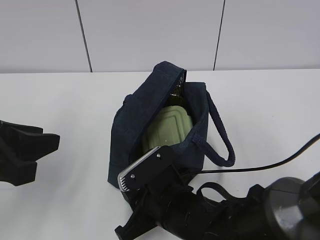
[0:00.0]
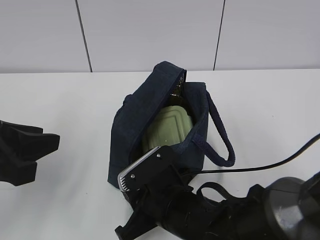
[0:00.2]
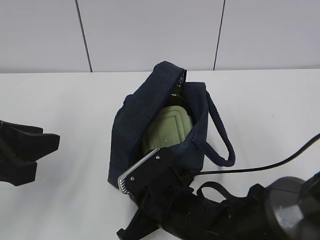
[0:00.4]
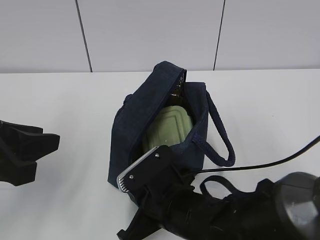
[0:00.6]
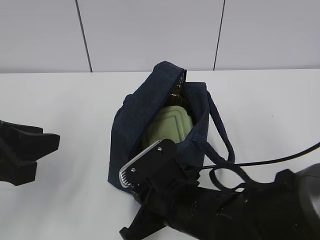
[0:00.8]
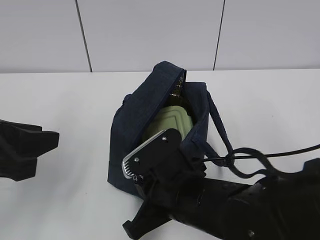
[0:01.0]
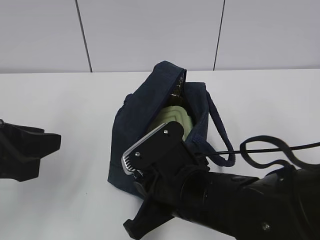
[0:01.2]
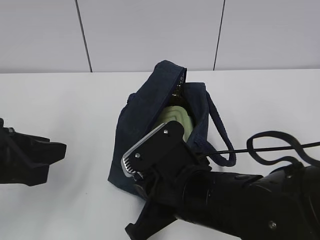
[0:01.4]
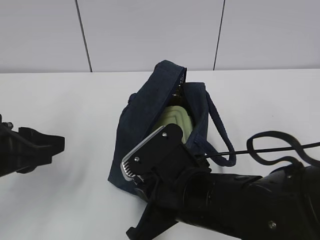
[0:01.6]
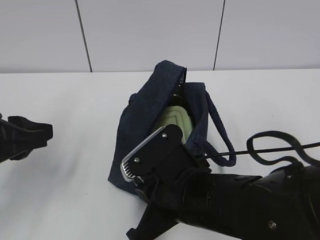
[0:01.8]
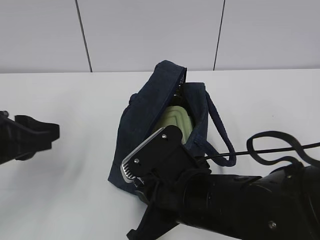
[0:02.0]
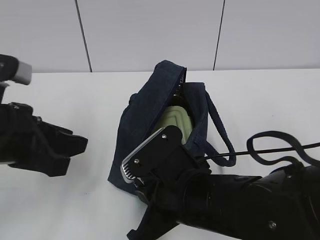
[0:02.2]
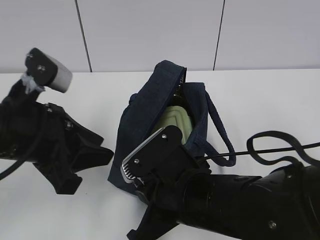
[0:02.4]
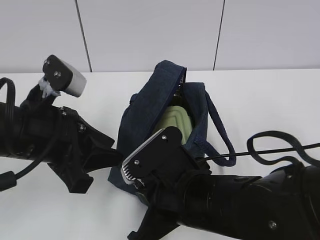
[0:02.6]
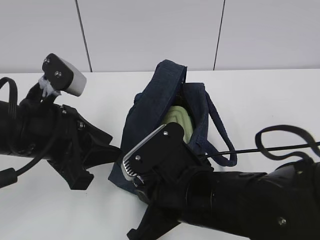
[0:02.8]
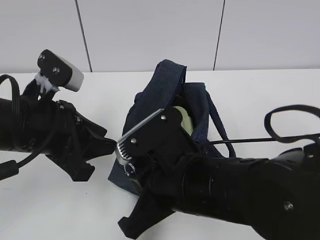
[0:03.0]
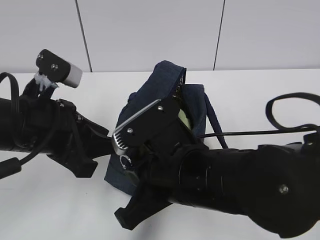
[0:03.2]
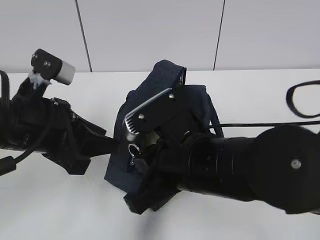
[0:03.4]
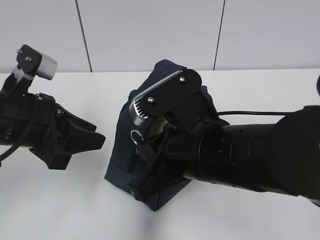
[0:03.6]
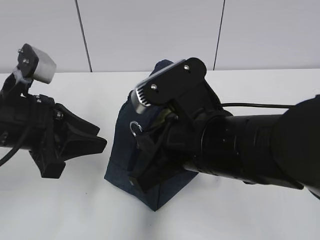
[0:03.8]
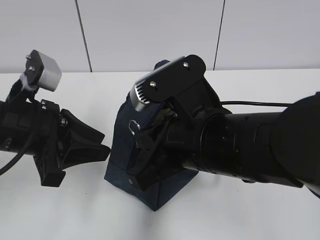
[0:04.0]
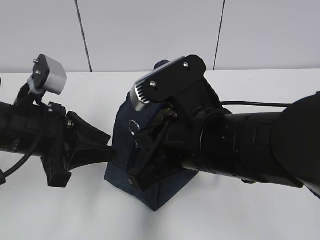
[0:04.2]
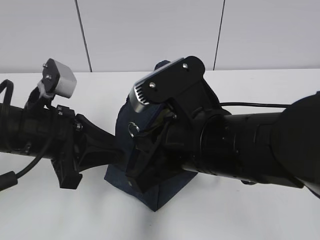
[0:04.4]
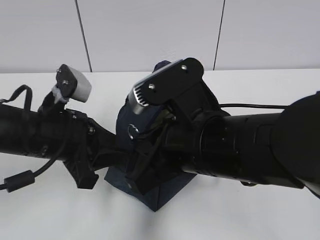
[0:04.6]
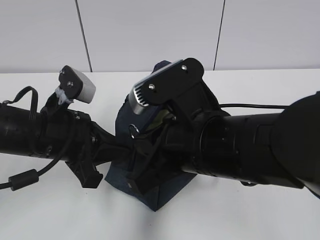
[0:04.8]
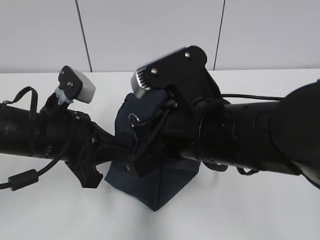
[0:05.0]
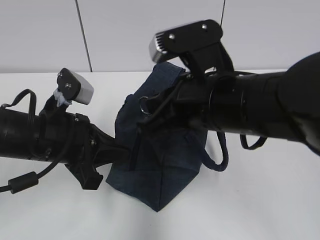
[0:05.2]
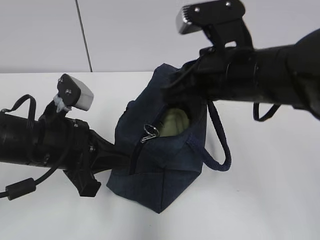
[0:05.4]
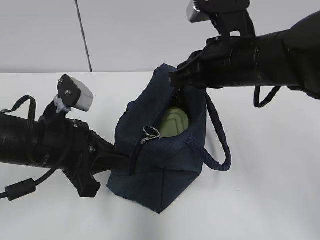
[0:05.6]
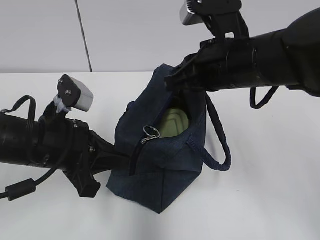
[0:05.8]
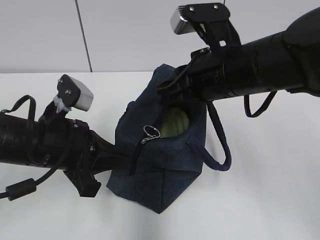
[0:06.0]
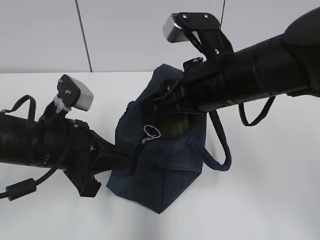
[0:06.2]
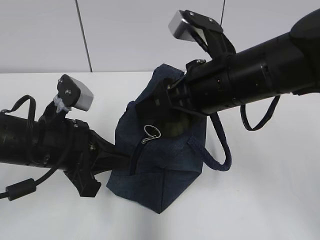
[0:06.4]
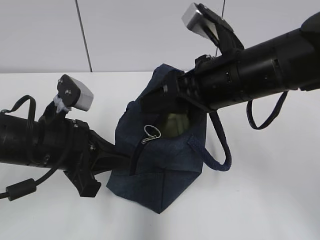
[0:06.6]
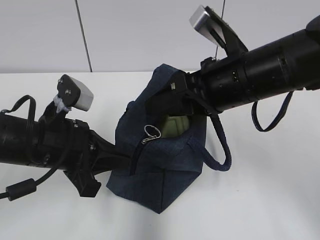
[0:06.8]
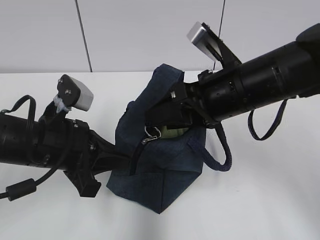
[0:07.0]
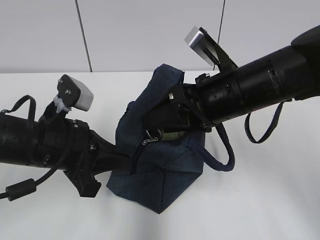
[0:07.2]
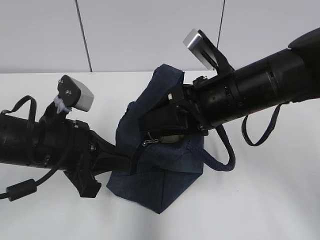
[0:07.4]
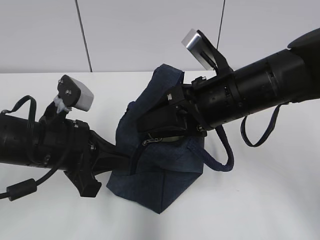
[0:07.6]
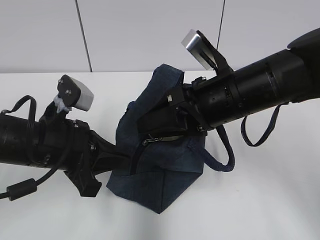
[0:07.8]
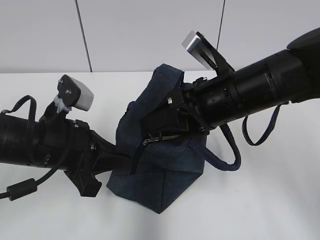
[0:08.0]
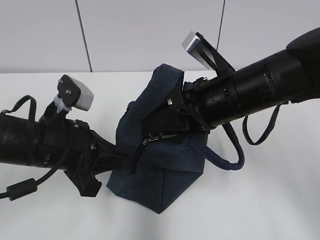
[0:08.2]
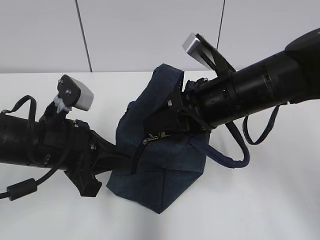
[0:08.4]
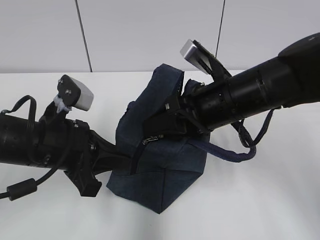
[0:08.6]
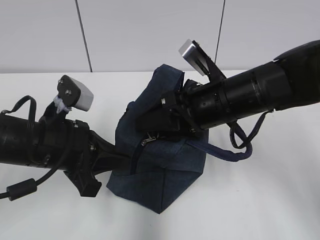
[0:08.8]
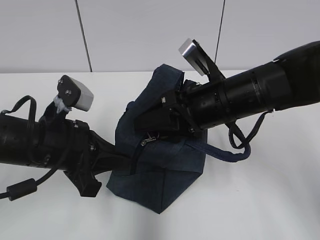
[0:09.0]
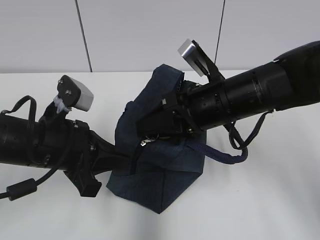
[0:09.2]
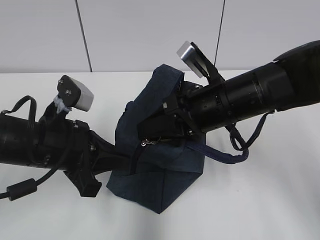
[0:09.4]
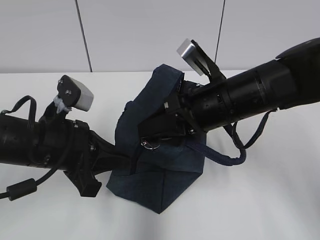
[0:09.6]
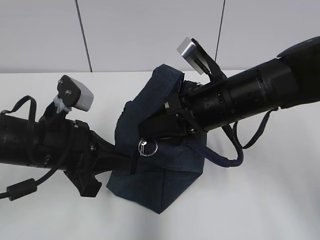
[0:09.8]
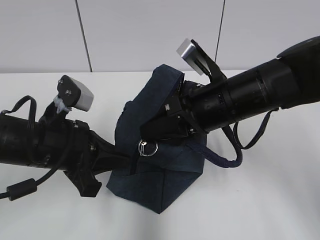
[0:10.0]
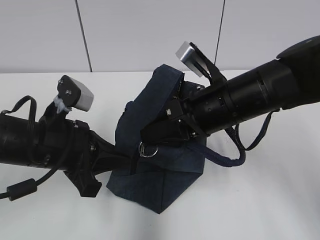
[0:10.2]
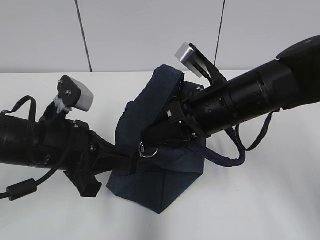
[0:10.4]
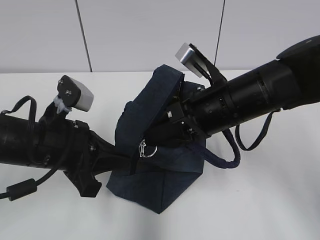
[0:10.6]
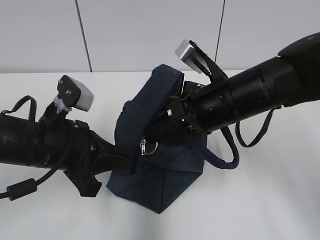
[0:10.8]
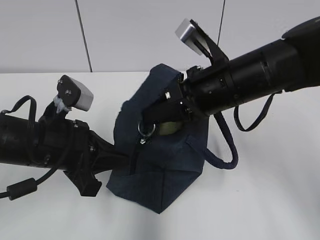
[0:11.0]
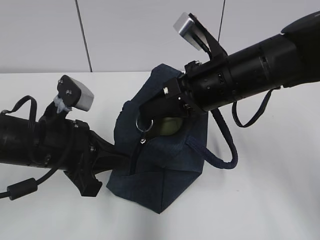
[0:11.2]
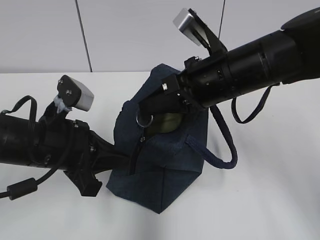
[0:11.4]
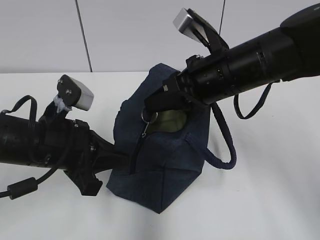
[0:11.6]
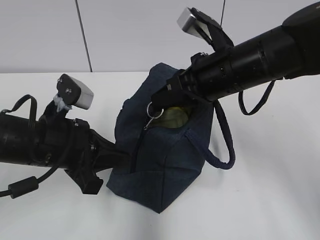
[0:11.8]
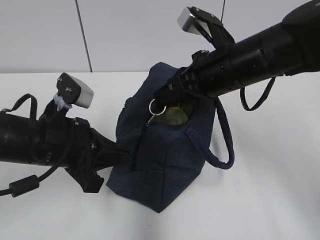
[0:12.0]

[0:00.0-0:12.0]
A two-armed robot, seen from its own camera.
Step, 0:00.0 to 0:04.8: Grab the lunch bag with your left hand.
0:00.0 to 0:01.6: The right gripper is displaced upward by approximately 5 cm, and closes up.
0:01.6 to 0:03.0: The left gripper goes some 5 cm to the right.
0:03.0 to 0:04.4: The right gripper goes some 5 cm upward.
0:04.4 to 0:06.0: The right gripper goes some 10 cm forward; the left gripper closes its fingers.
0:06.0 to 0:07.6: The right gripper opens its fingers.
0:07.6 to 0:09.0: The grippers move only a little.
0:09.0 to 0:10.4: The right gripper closes up.
0:10.4 to 0:12.0: The right gripper shifts by approximately 5 cm.

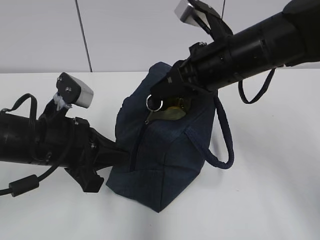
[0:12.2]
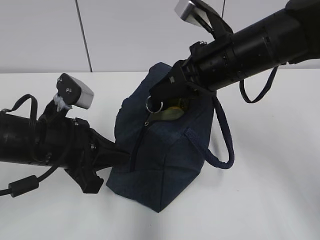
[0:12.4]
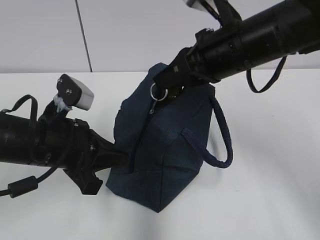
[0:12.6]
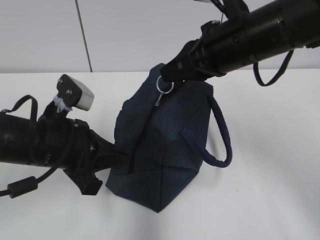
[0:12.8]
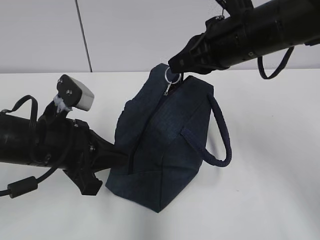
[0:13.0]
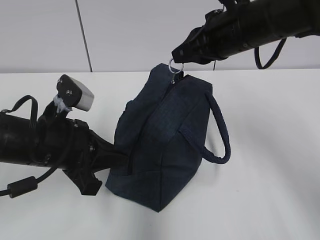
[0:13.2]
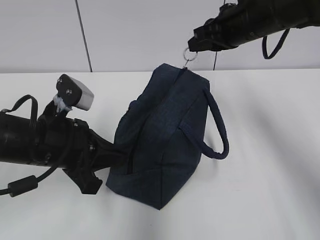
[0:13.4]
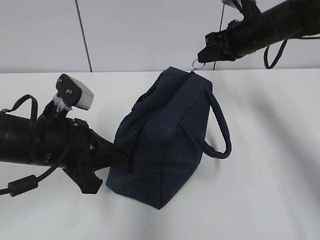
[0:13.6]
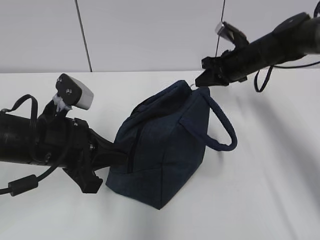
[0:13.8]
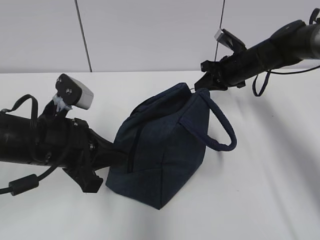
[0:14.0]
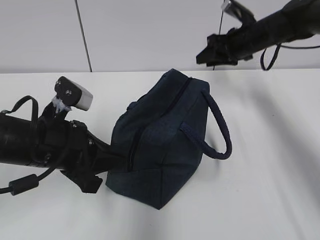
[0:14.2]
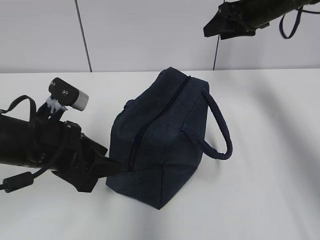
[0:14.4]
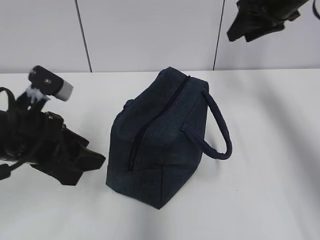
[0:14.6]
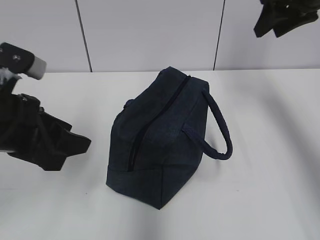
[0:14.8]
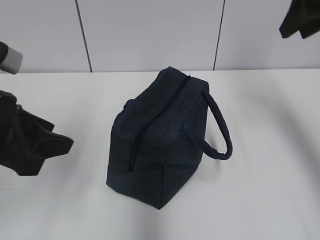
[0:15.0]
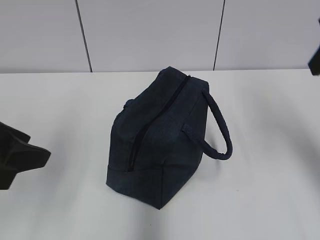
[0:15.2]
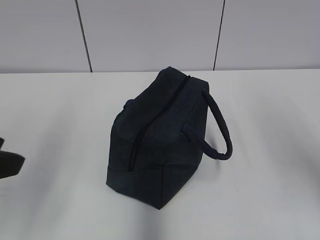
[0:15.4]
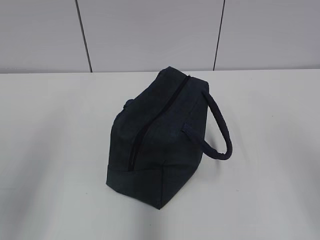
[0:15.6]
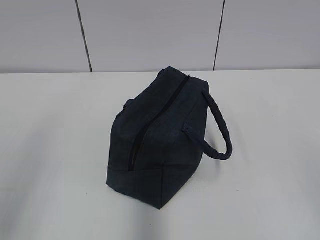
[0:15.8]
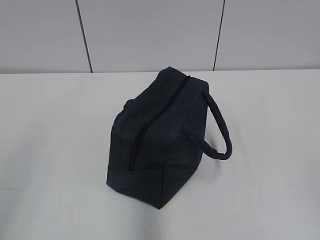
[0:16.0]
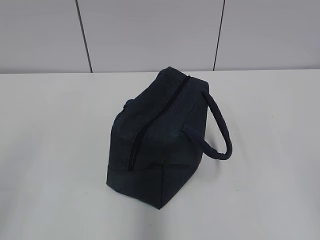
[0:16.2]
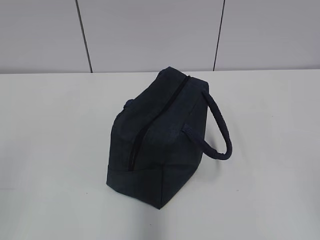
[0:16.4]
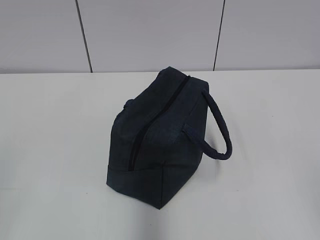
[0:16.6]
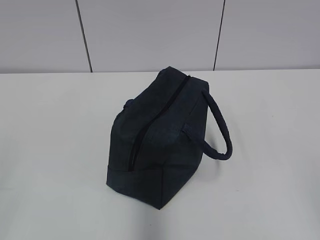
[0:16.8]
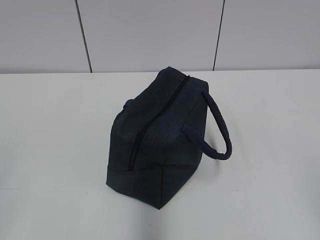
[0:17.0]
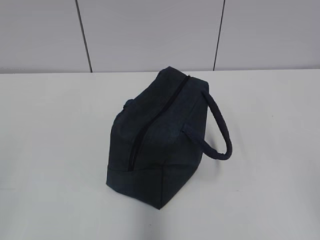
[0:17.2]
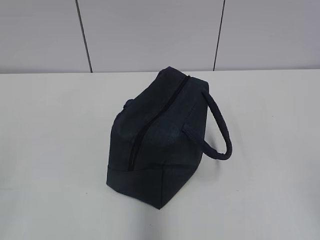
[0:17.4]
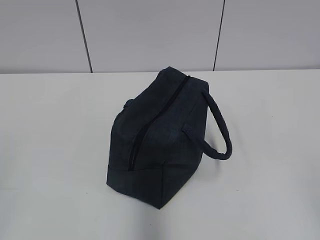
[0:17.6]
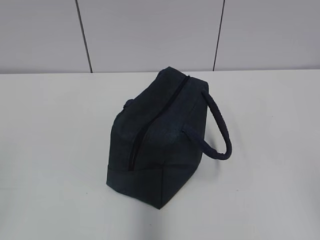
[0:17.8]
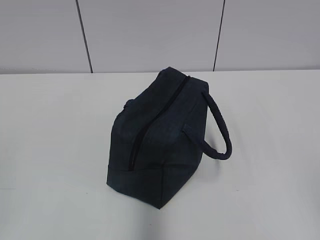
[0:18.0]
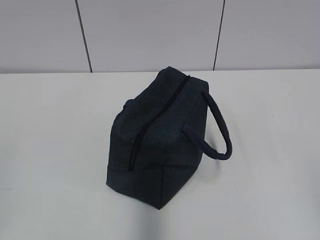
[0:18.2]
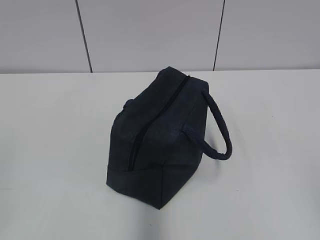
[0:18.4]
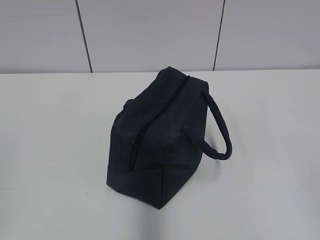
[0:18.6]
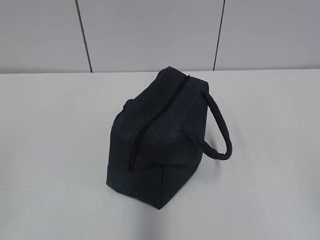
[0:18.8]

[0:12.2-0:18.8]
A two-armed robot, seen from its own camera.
0:12.2 to 0:13.8: The right gripper goes about 20 cm forward, to the right and downward.
0:13.8 to 0:15.4: The right gripper moves backward and upward, roughly 35 cm, and opens; the left gripper travels upward, backward and to the left by roughly 15 cm, and opens up.
0:15.4 to 0:17.2: The left gripper heads backward and to the left, covering some 15 cm; the right gripper goes about 20 cm backward and downward.

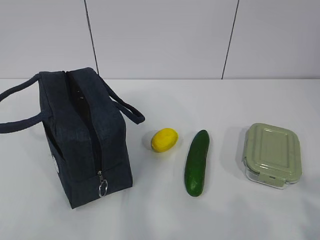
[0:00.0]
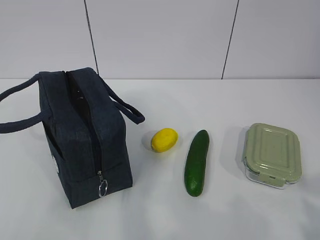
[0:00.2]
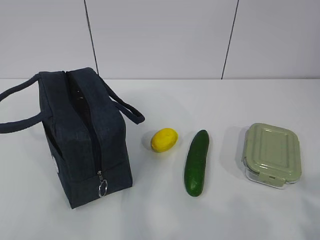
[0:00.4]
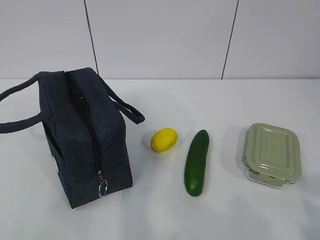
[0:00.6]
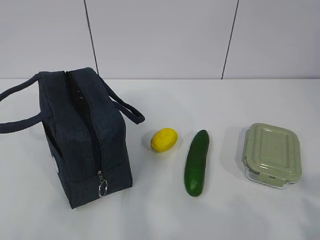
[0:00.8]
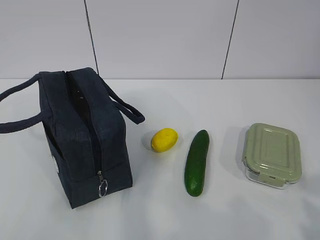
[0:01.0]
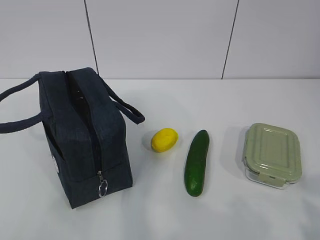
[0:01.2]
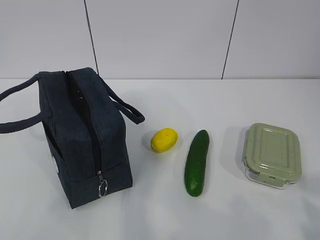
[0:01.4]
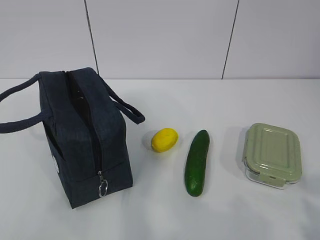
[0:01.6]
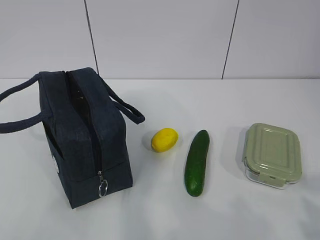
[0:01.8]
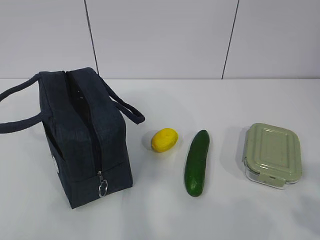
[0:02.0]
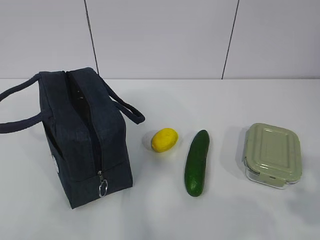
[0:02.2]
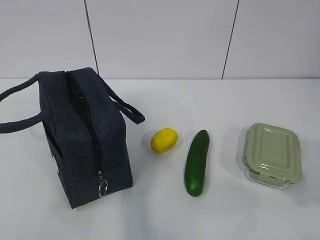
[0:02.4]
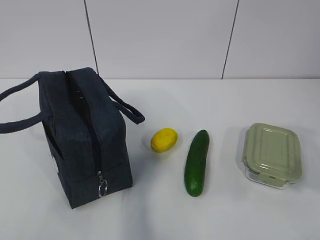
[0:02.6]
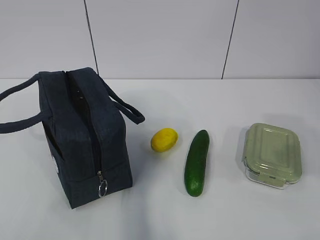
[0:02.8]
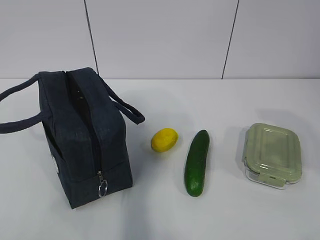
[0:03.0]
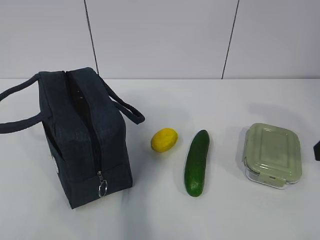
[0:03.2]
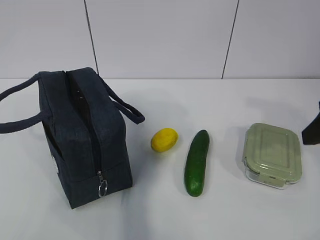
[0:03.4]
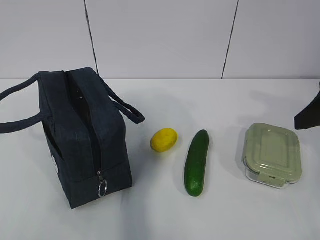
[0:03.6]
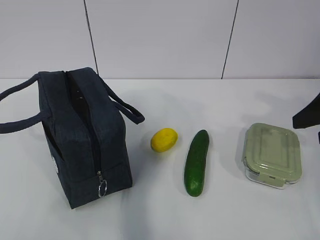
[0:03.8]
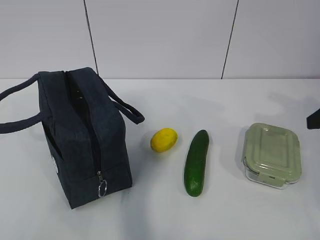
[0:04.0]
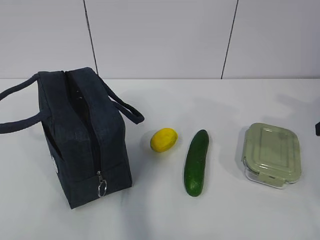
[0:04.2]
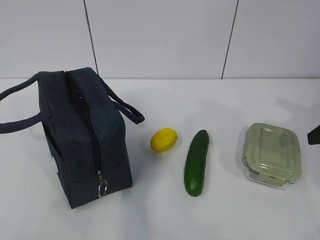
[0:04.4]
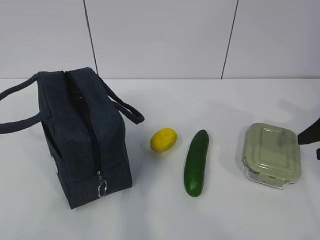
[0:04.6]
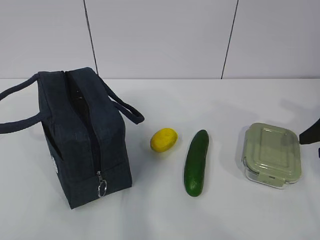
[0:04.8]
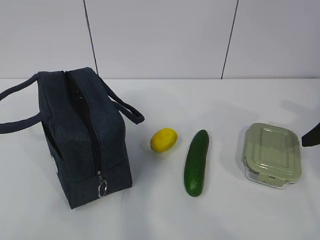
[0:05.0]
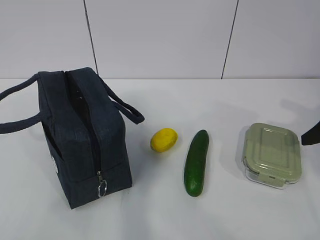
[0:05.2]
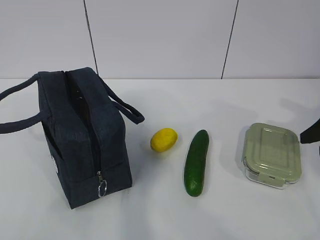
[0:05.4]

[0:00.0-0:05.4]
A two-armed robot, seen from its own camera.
0:01.4 to 0:02.8: The right gripper heads forward, covering about 15 cm.
0:04.0 to 0:05.4: The right gripper travels downward by some 5 cm.
